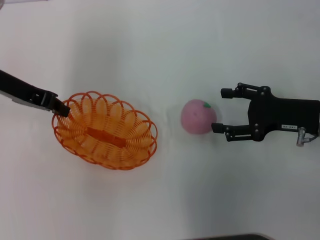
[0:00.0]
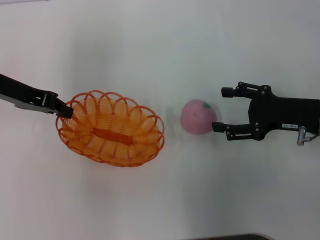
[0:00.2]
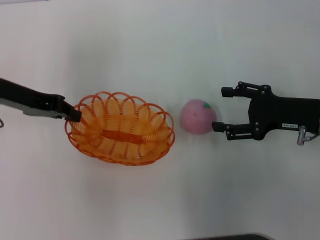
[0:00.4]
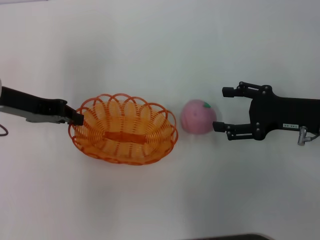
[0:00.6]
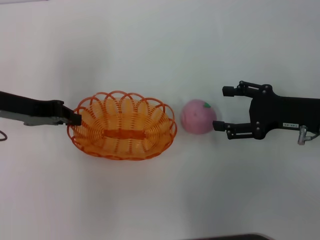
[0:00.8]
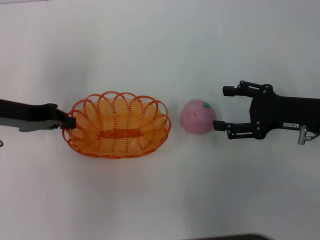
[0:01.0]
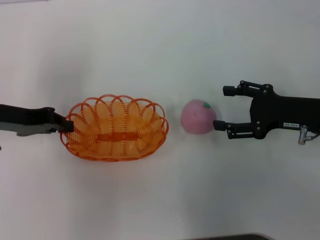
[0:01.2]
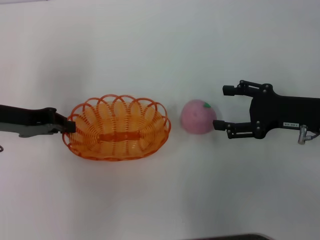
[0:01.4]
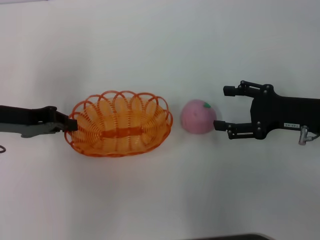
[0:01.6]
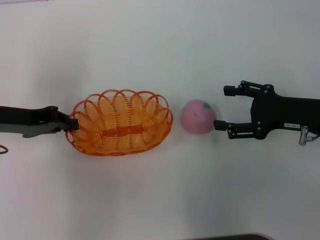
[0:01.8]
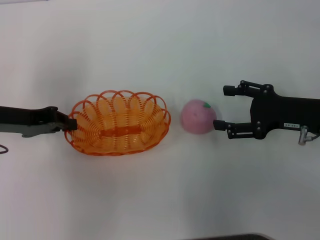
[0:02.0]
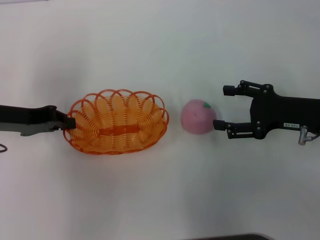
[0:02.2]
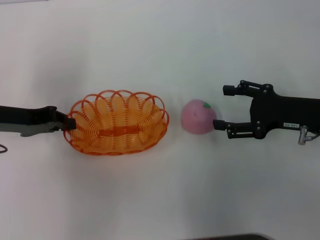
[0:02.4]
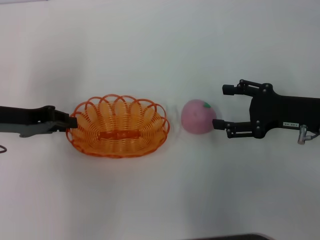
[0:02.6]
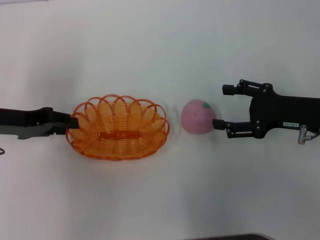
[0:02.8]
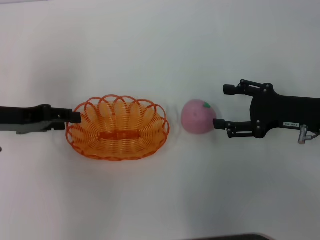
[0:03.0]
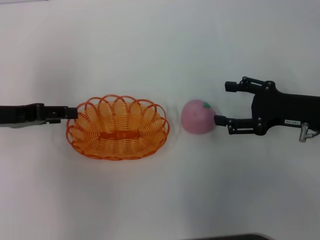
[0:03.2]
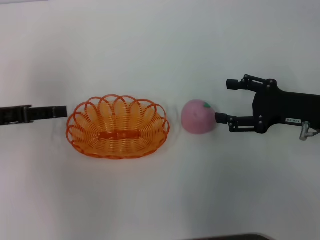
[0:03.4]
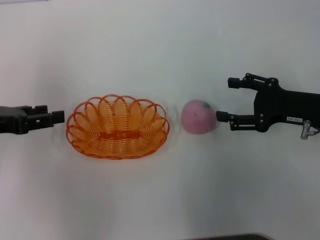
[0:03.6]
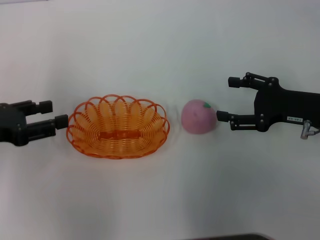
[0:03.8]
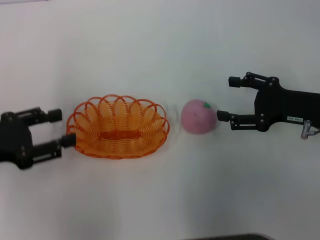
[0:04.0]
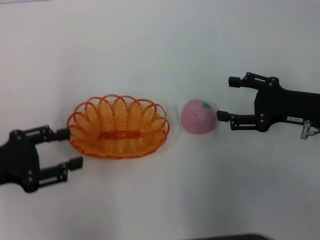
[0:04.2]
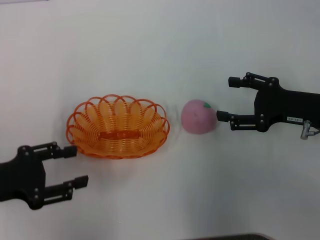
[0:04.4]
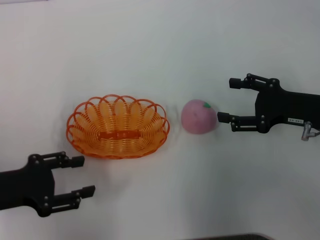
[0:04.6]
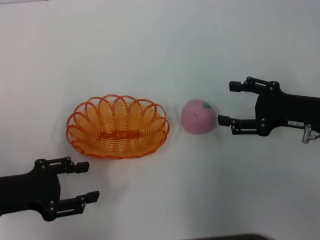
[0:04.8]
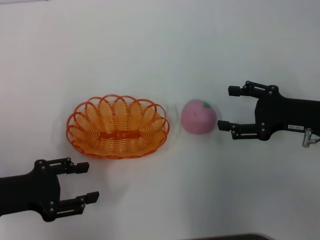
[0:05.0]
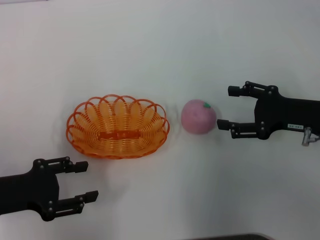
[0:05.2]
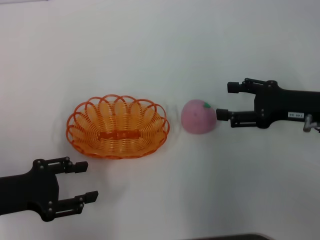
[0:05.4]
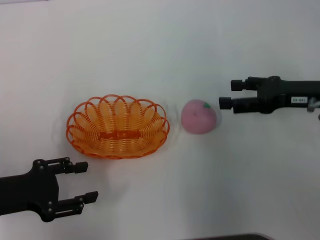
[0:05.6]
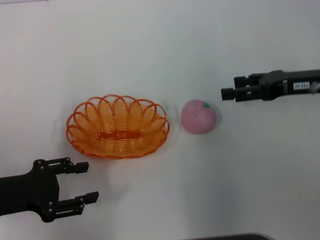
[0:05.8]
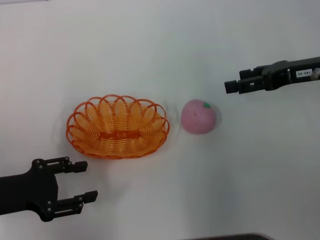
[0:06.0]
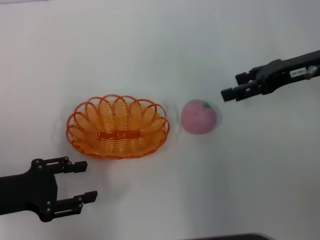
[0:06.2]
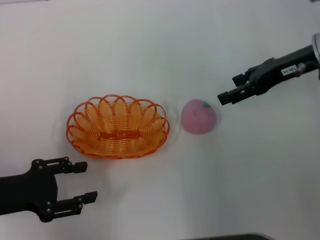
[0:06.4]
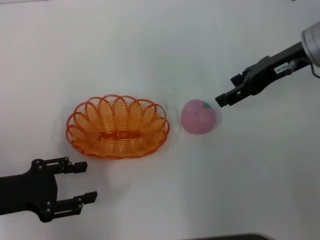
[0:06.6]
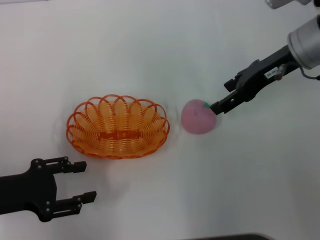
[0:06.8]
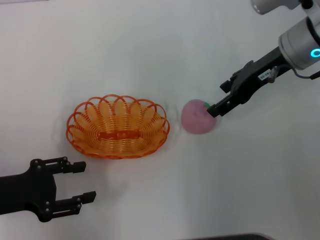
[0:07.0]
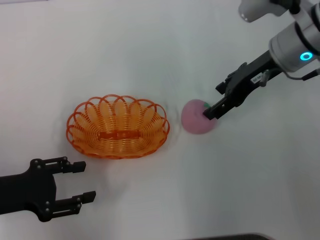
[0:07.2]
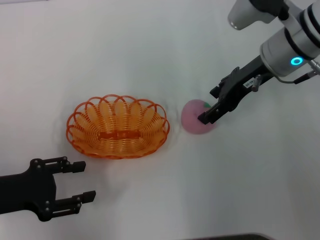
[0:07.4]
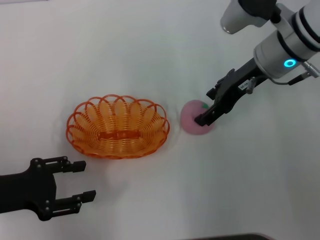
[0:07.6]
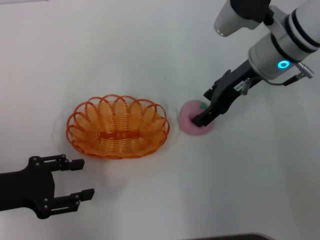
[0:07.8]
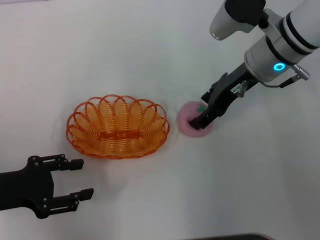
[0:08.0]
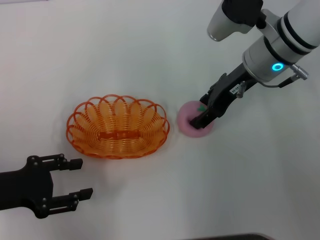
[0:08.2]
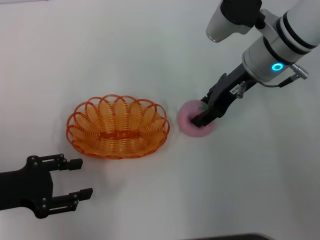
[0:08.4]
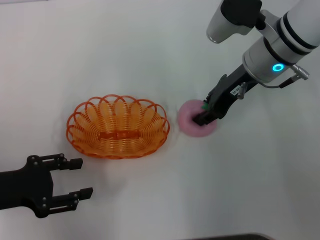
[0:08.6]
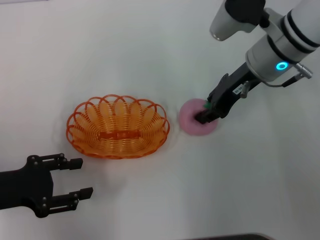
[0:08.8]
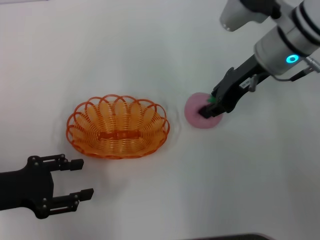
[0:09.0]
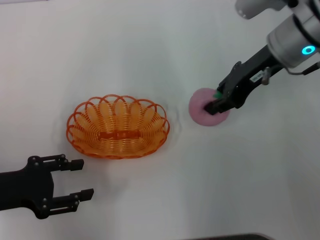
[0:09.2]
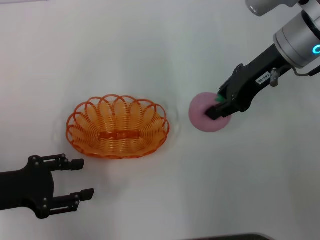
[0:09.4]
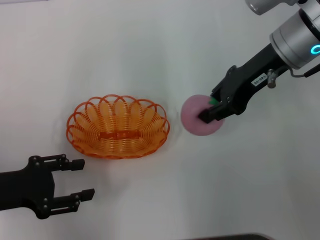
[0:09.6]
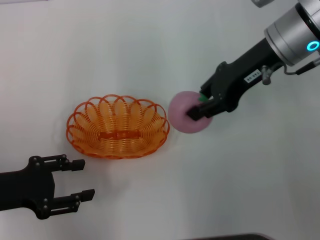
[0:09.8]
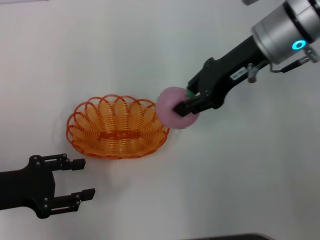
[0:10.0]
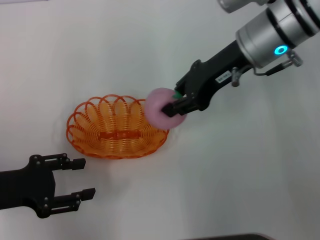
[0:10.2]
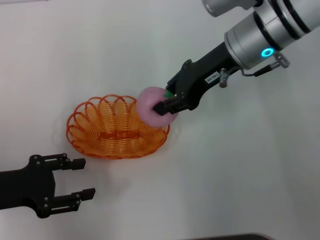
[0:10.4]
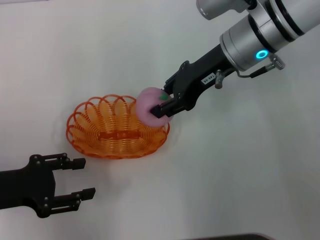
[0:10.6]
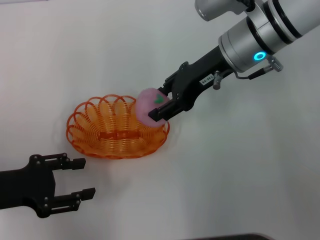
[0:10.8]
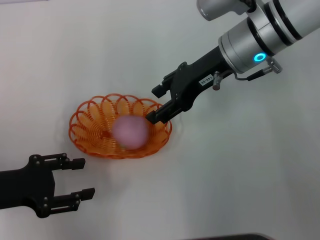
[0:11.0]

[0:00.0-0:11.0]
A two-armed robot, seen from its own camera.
Step, 0:00.0 to 0:03.4: Place the basket in the center of view with the left gripper.
Step, 0:03.6 to 0:09.0: Pick up the peach with the right gripper.
0:00.0 to 0:01.6: The left gripper is displaced backward by some 5 cm.
0:01.6 to 0:03.2: The left gripper opens.
0:03.2 to 0:04.8: The left gripper shifts approximately 10 cm backward and downward.
0:04.8 to 0:06.2: The right gripper heads upward and forward, covering roughly 10 cm.
0:06.2 to 0:07.8: The right gripper travels to the left by about 10 cm.
0:07.8 to 0:09.4: The right gripper closes.
0:09.4 to 0:11.0: The right gripper is displaced to the left by some 5 cm, and opens its fingers.

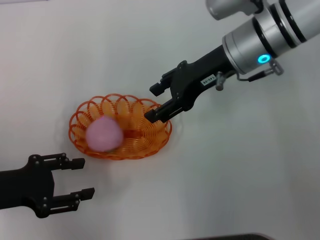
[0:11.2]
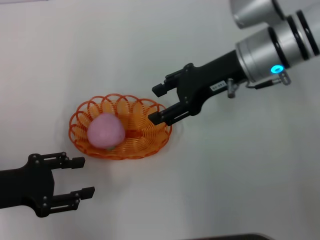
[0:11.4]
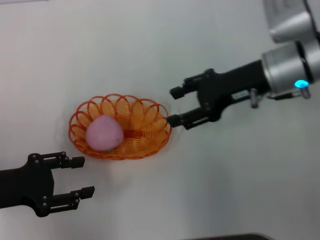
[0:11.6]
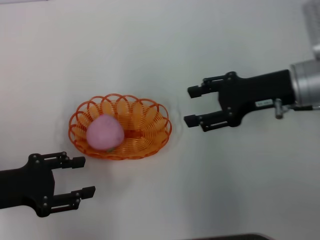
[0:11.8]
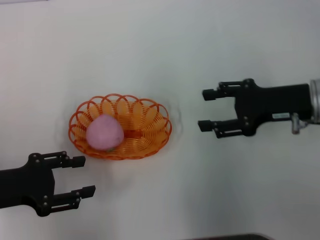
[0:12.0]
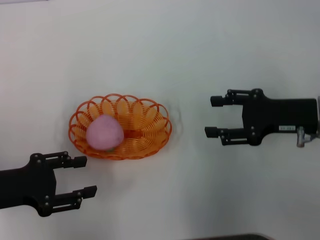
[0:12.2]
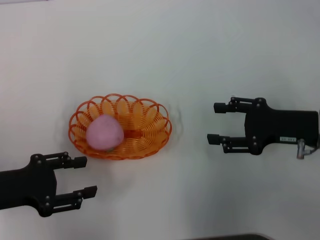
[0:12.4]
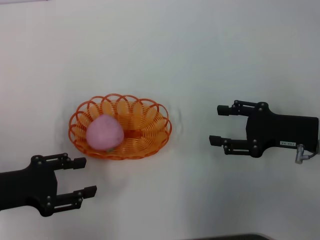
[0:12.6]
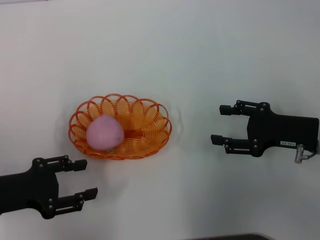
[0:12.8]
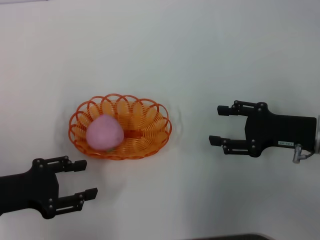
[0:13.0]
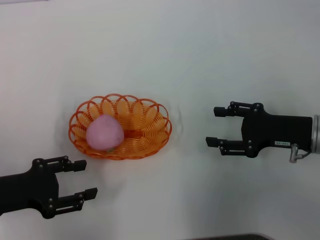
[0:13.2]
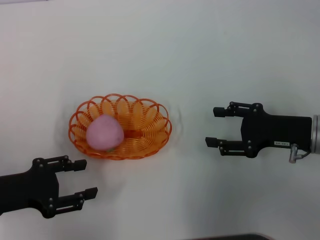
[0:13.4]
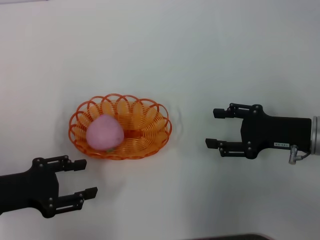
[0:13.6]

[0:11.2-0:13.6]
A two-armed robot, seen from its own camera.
0:11.2 to 0:12.4: The right gripper shifts about 20 cm to the right, backward and downward.
0:12.4 to 0:13.6: The grippers move only a little.
